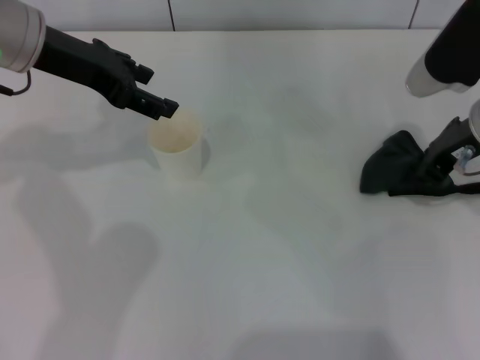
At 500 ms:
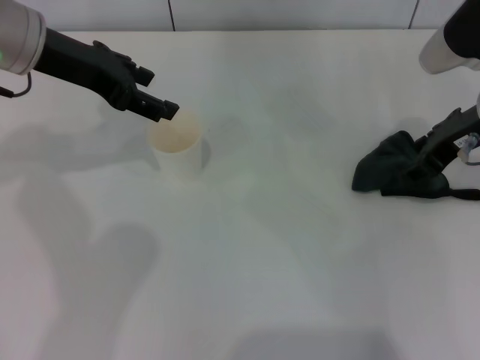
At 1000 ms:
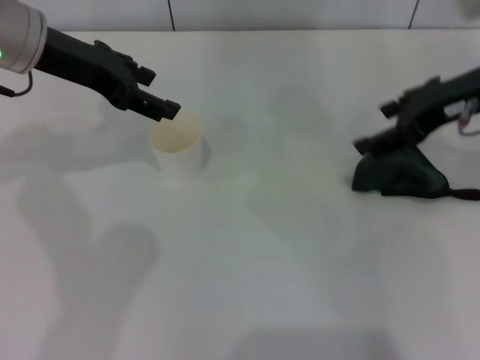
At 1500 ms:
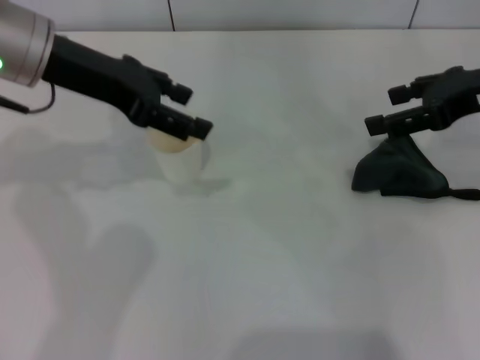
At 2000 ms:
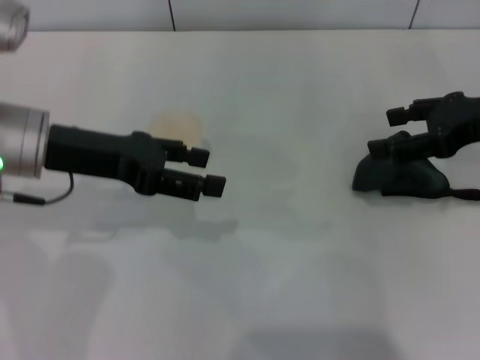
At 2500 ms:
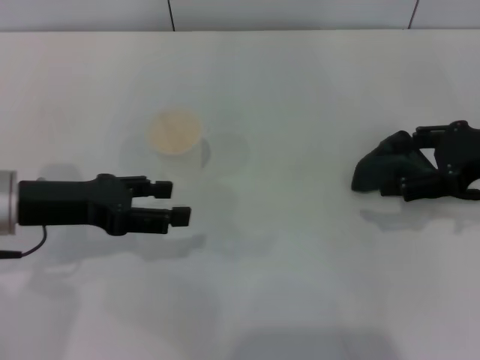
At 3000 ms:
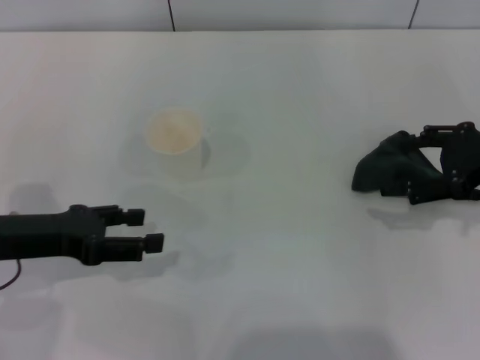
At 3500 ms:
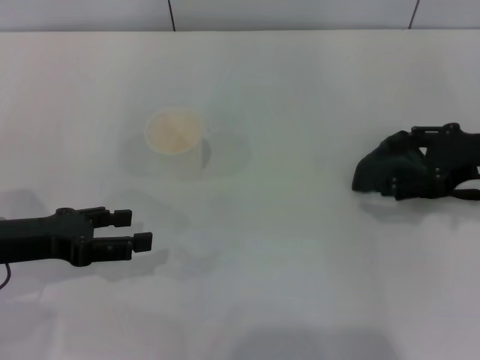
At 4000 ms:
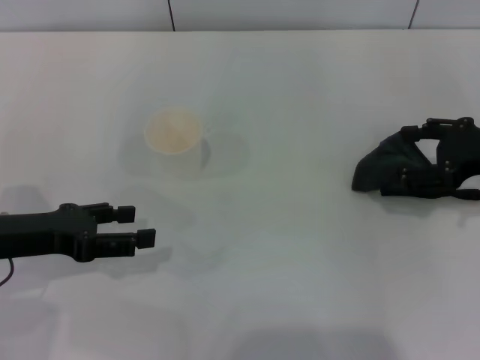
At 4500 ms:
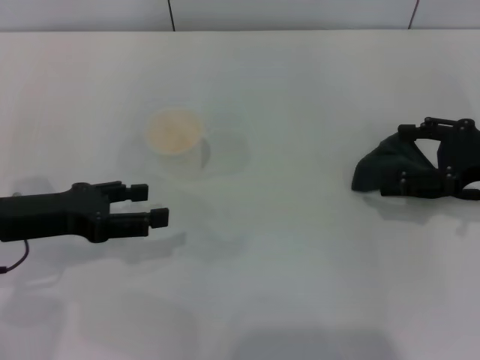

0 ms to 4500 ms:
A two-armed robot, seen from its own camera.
Step, 0 ms to 2500 ms: Place the rag on the table with the right gripper.
0 ms to 2000 ms: The right gripper is displaced to the right by roughly 5 cm, and opens its fingers; the left gripper travels backward and downward by about 10 cm.
2000 ms to 4500 ms: The left gripper goes approximately 10 cm to the left, downward and backward, while the right gripper goes roughly 5 cm downward.

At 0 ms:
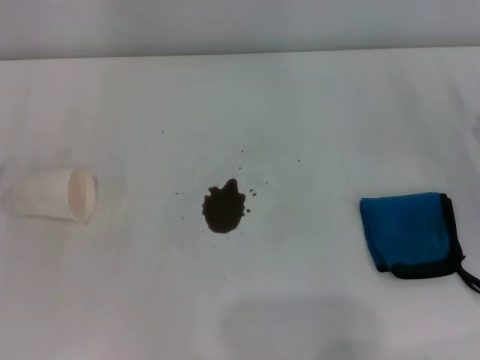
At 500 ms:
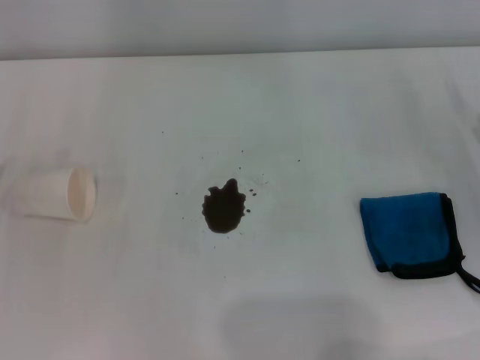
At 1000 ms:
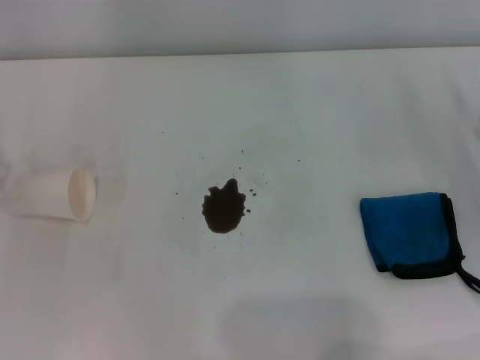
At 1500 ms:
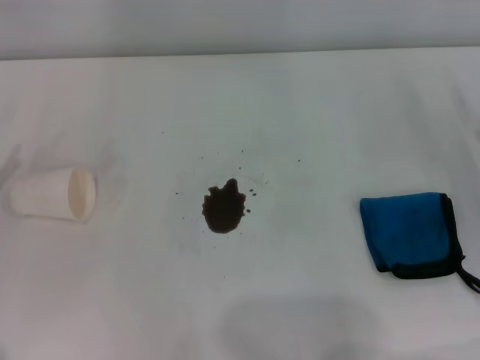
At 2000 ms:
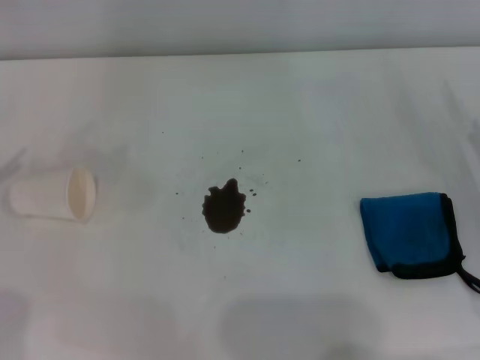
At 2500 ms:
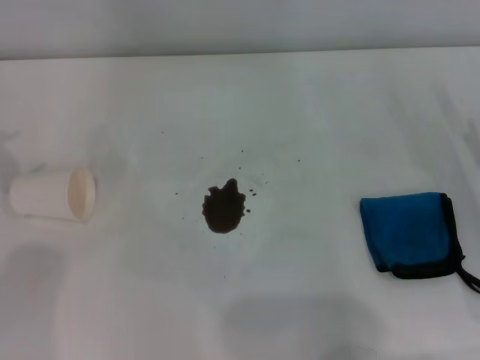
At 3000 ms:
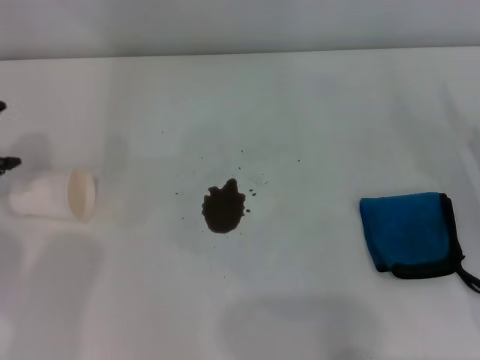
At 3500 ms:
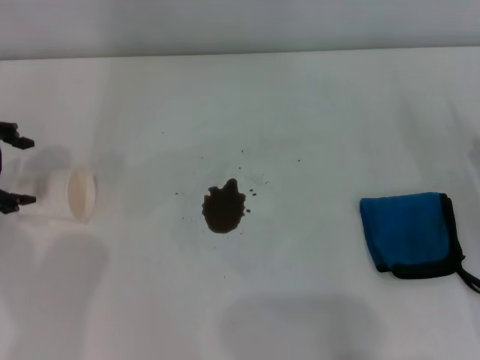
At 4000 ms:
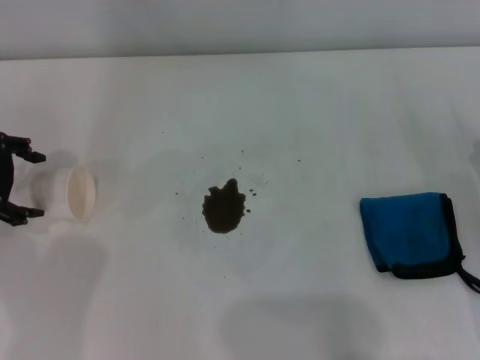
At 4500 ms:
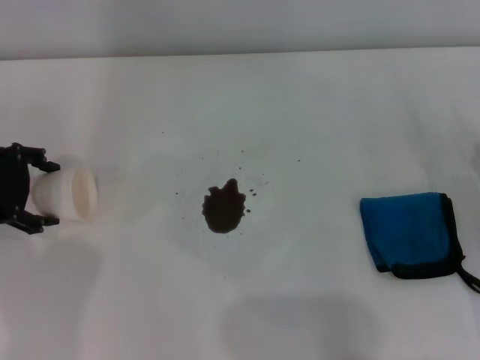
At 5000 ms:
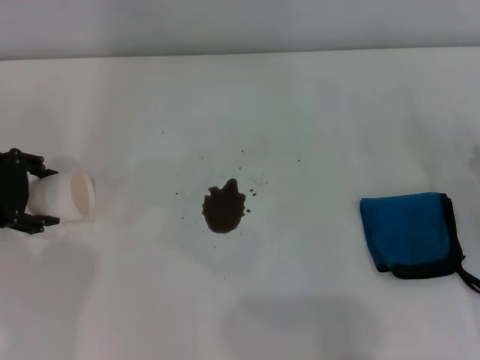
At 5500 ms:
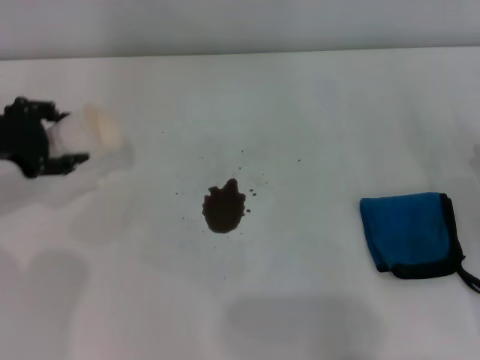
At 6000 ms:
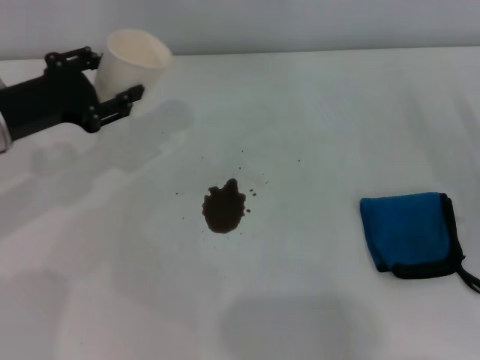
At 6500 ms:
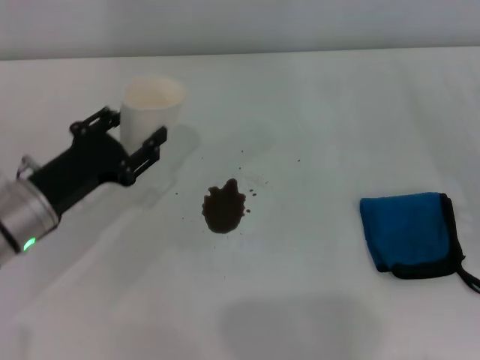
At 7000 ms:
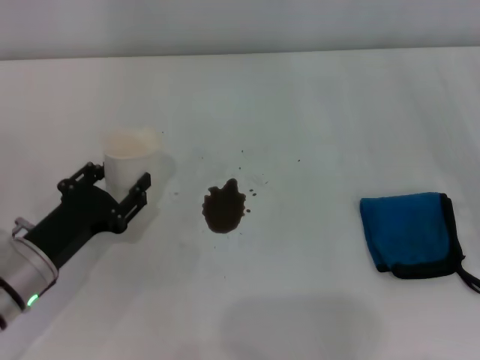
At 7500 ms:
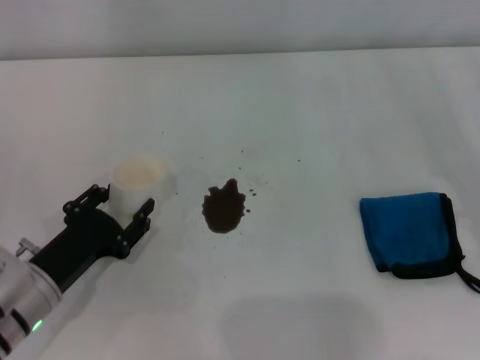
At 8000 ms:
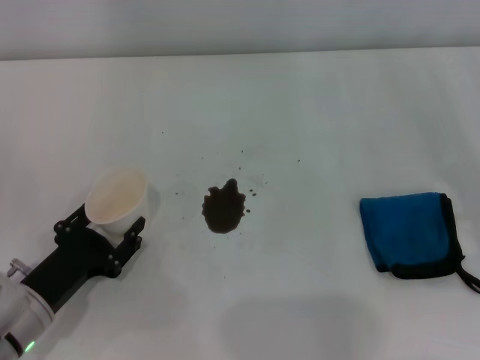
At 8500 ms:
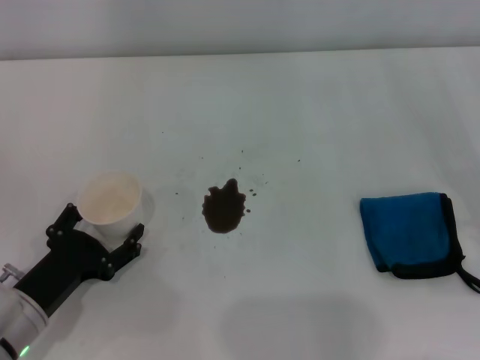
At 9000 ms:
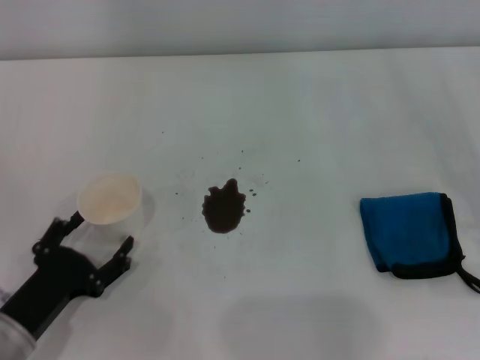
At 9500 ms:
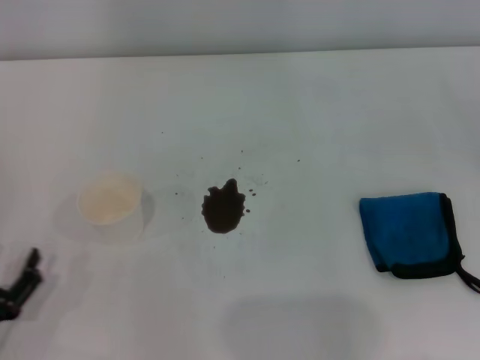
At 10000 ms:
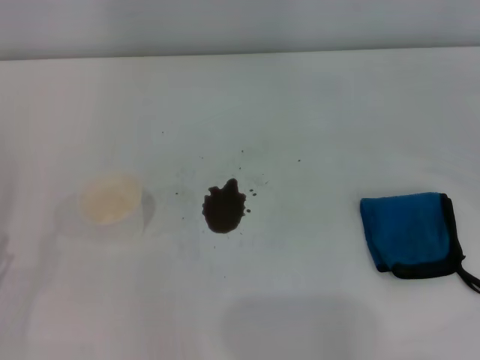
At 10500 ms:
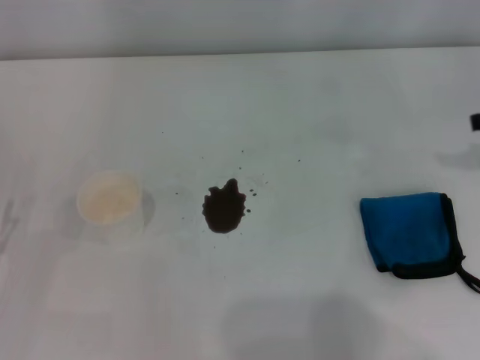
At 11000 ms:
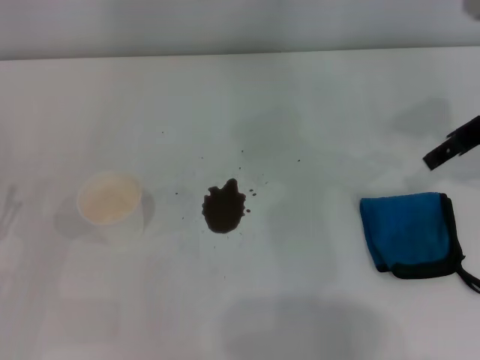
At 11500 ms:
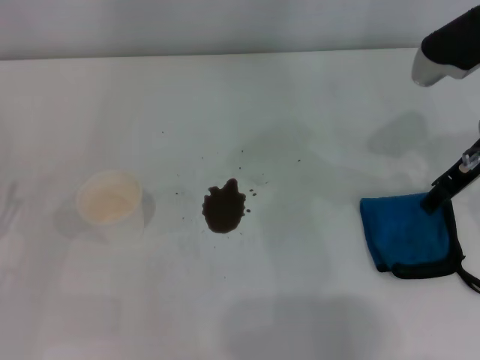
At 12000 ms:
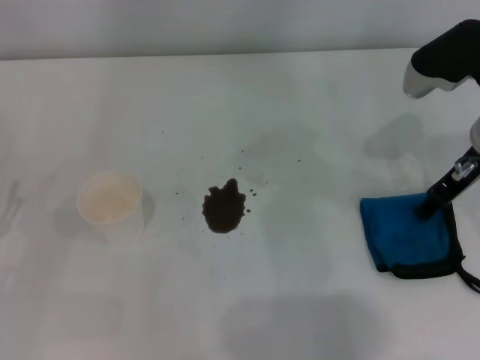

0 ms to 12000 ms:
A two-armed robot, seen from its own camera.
Step, 0 ms to 4500 ms: Grasp the paper cup with the left gripper.
Step, 5000 ms to 8000 ms: Stand the paper cup upright with the left gripper.
2000 ms to 4000 ms: The left gripper heads to the right and forward, covering about 10 cm.
4000 ms to 6000 ms: The left gripper ends up some 5 cm from where it was, and closes.
6000 ms to 8000 ms: The left gripper shifts approximately 20 cm backward and downward.
8000 ms to 10000 ms: The left gripper heads to the left and backward, covering approximately 10 cm, and opens its fingers.
10000 ms to 12000 ms: The right gripper travels to the left by roughly 20 cm.

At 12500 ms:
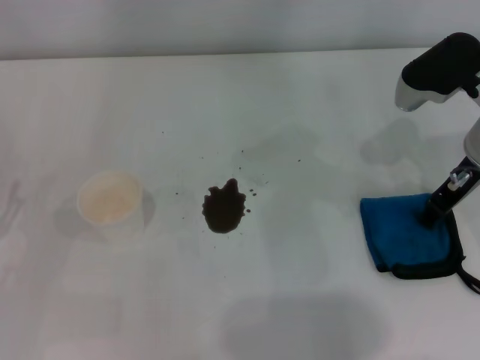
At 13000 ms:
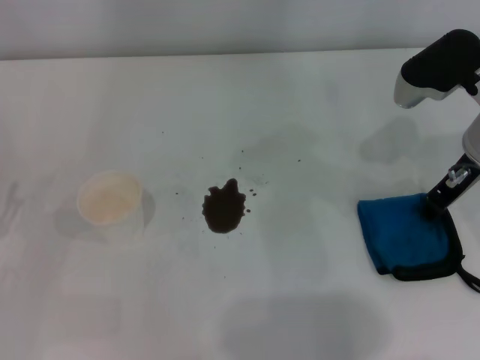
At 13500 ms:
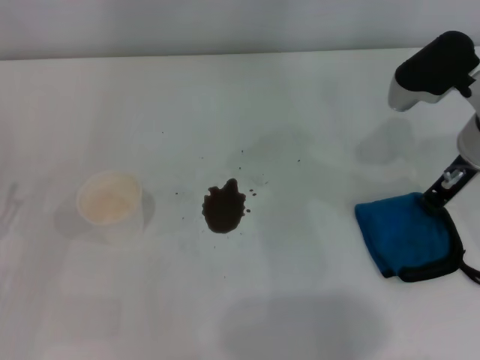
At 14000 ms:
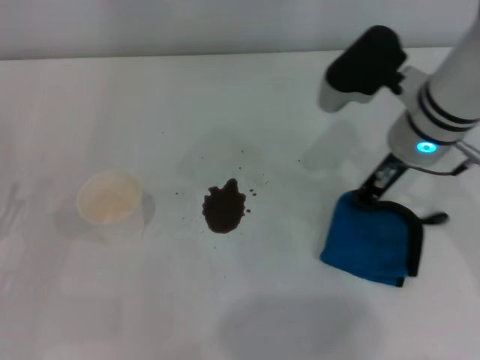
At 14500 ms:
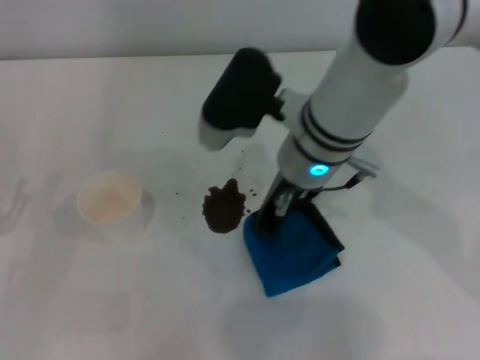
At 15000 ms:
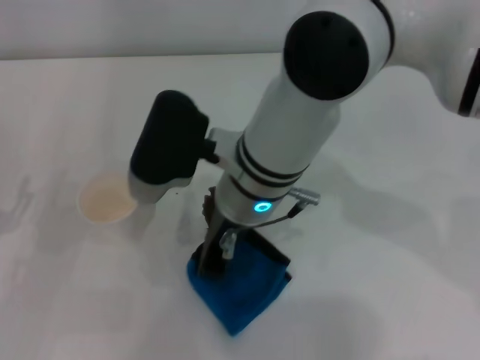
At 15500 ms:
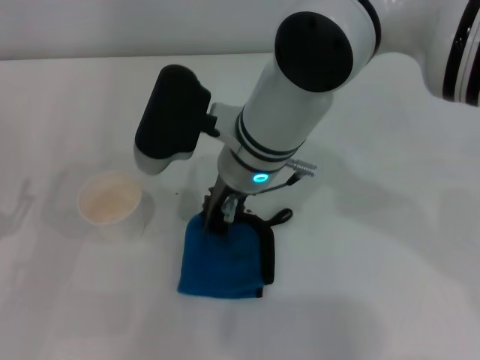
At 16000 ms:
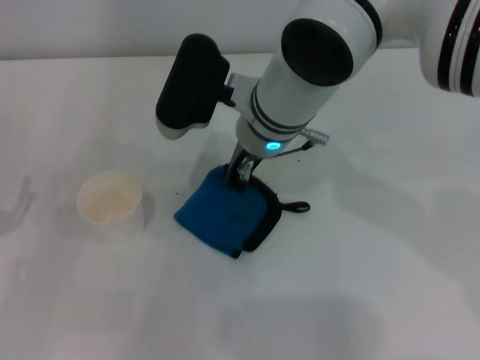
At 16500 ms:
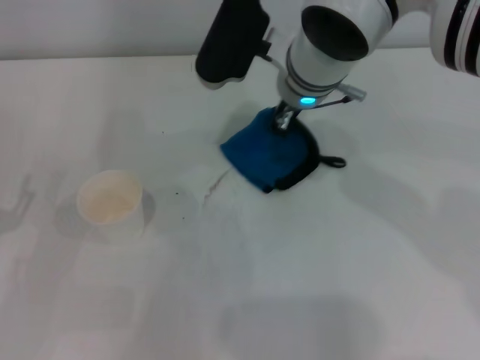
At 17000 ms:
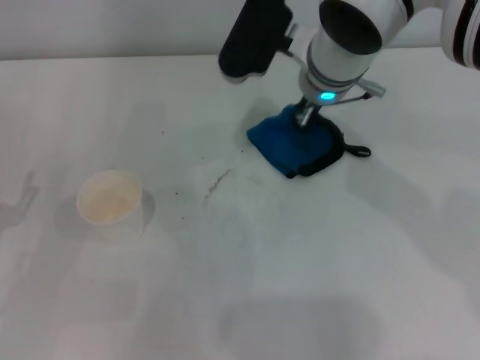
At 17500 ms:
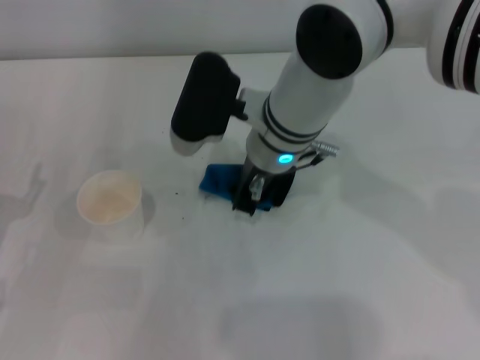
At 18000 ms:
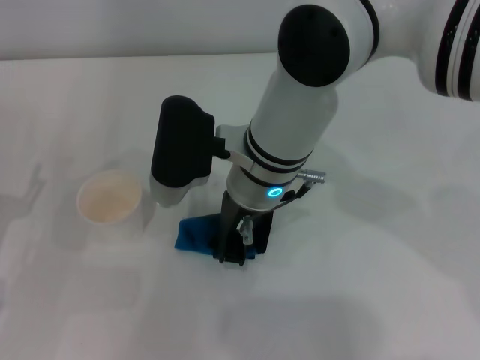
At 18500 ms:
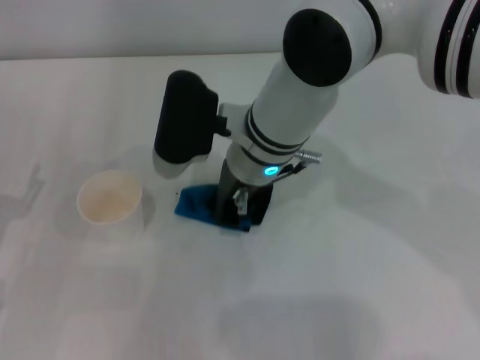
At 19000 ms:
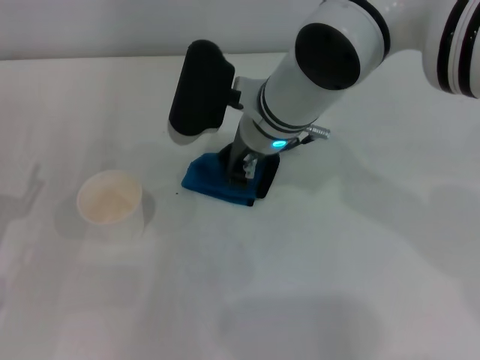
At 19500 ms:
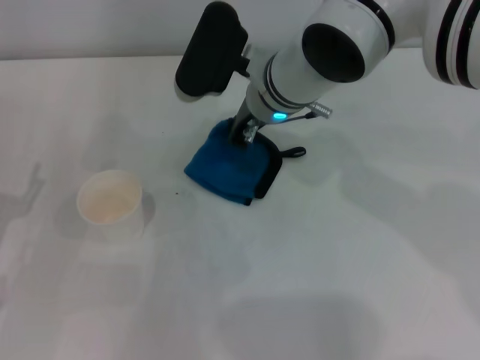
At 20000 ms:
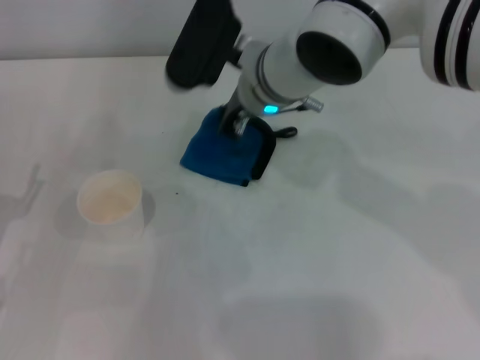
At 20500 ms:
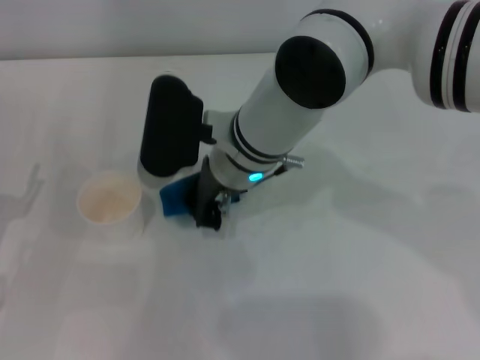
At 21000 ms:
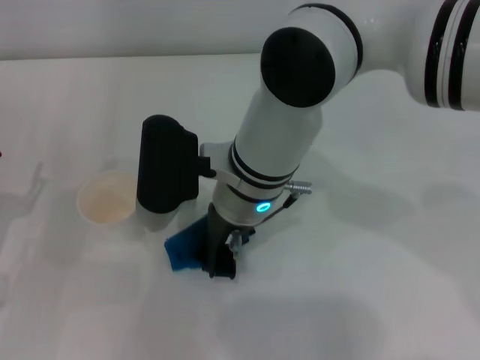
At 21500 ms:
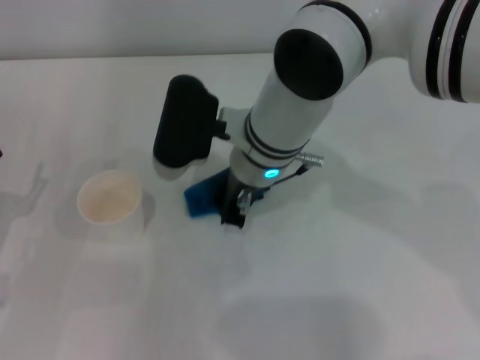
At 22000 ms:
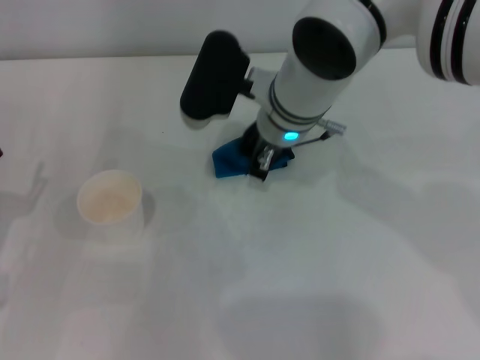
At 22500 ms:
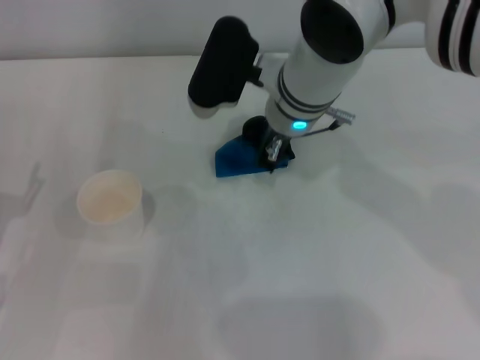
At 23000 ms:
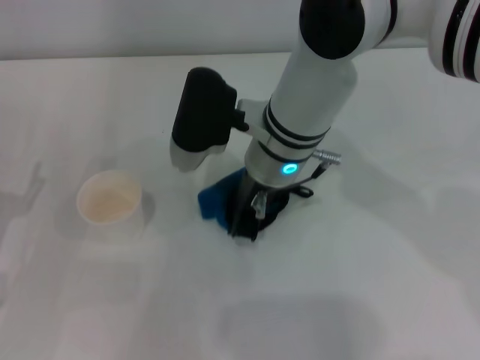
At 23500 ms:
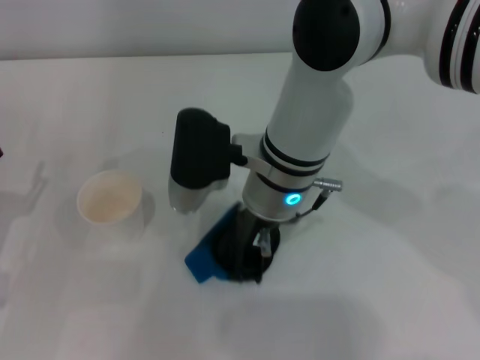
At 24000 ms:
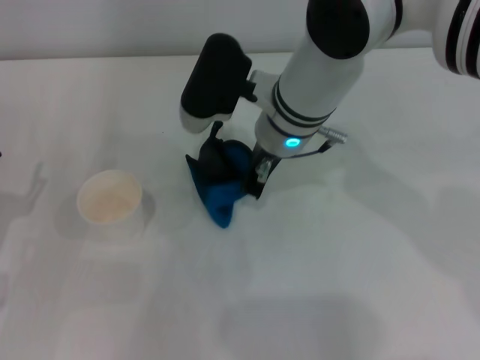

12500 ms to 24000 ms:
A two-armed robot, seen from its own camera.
12500 ms to 14500 ms: The right gripper goes roughly 20 cm to the left, and closes.
14500 ms to 16500 ms: The right gripper travels forward by roughly 5 cm.
16500 ms to 18500 ms: The right gripper travels backward by about 5 cm.
18500 ms to 20000 ms: The right gripper is displaced forward by about 5 cm.
20000 ms to 22000 ms: The right gripper reaches some 10 cm backward, then returns.
